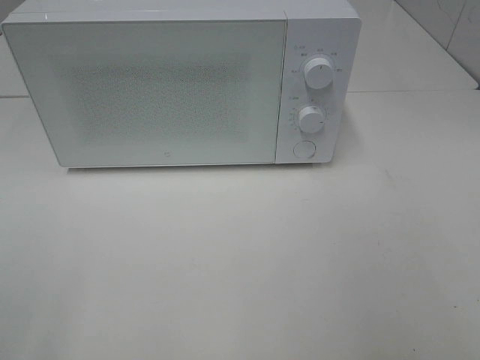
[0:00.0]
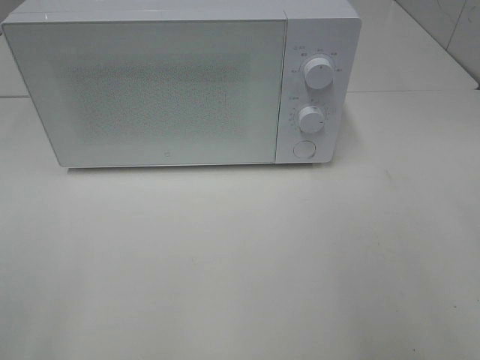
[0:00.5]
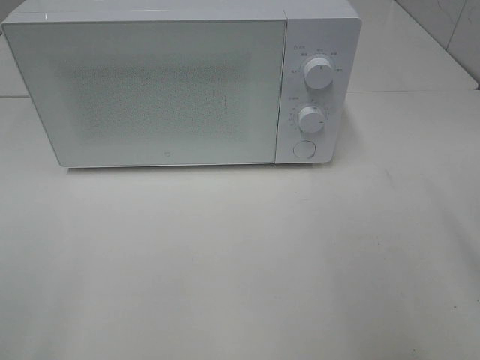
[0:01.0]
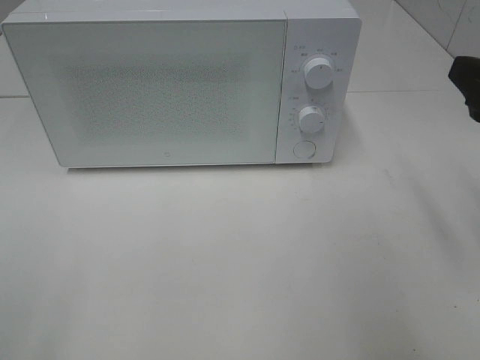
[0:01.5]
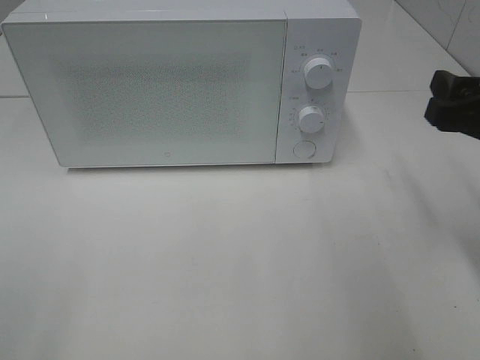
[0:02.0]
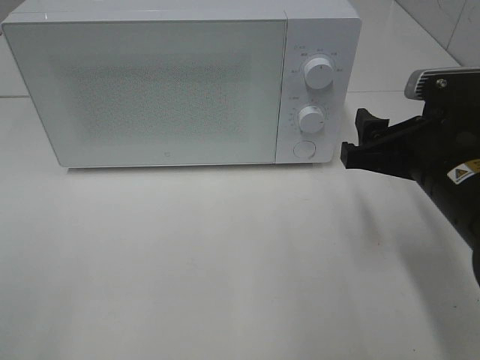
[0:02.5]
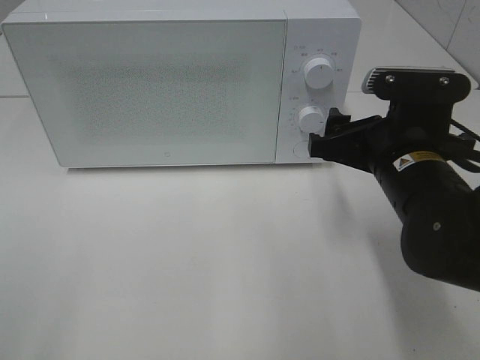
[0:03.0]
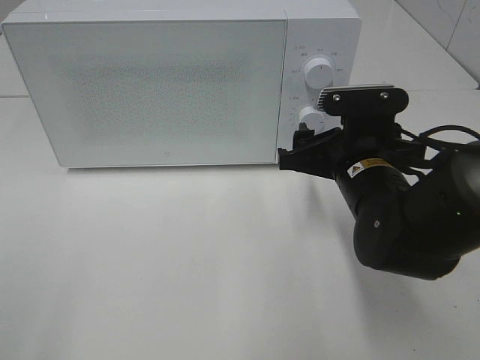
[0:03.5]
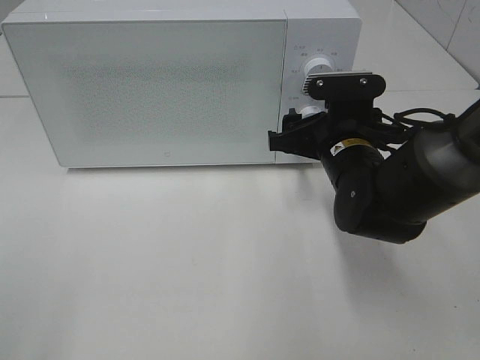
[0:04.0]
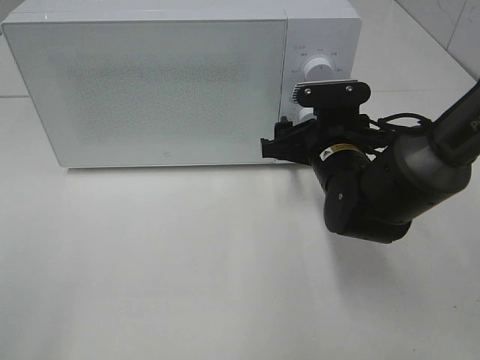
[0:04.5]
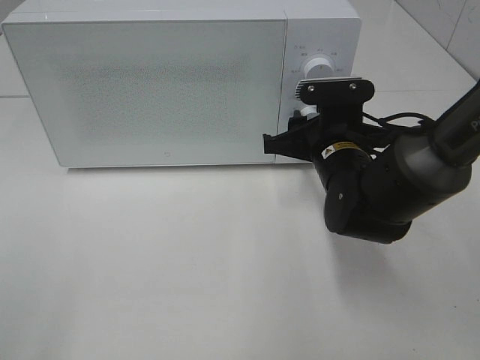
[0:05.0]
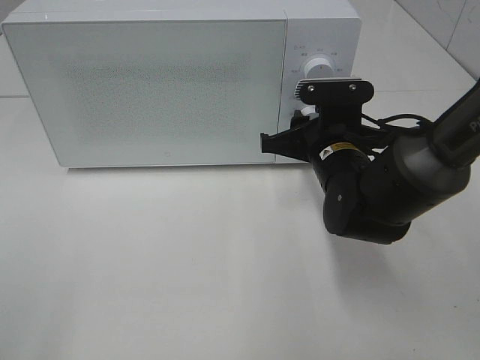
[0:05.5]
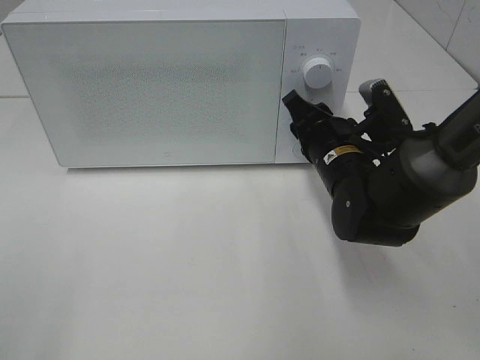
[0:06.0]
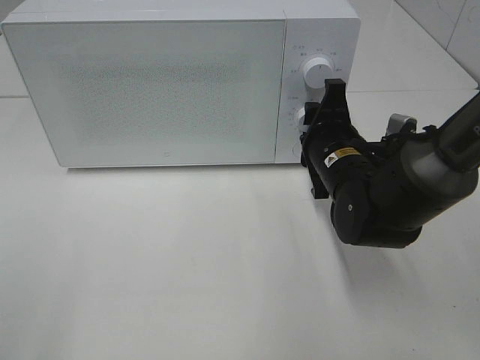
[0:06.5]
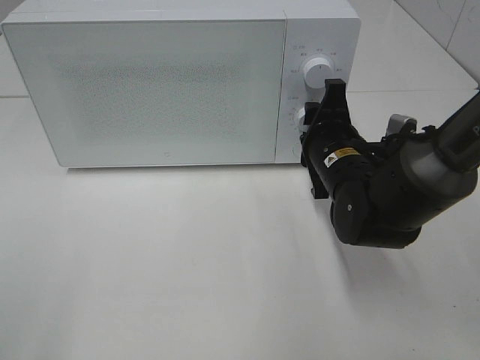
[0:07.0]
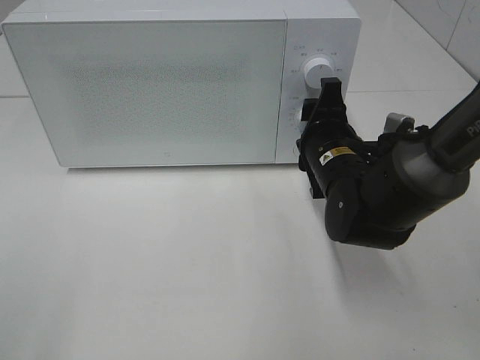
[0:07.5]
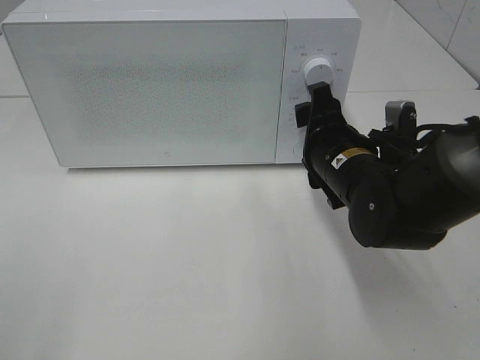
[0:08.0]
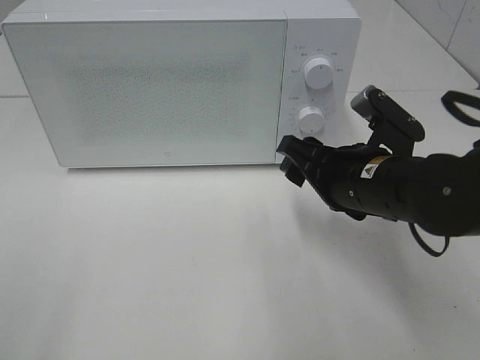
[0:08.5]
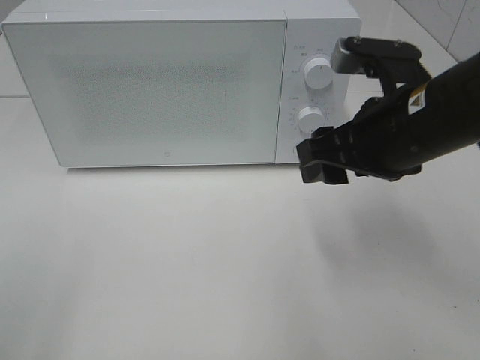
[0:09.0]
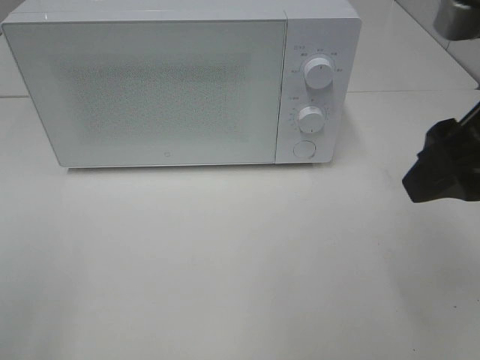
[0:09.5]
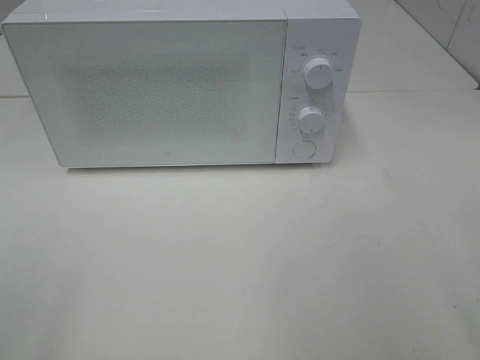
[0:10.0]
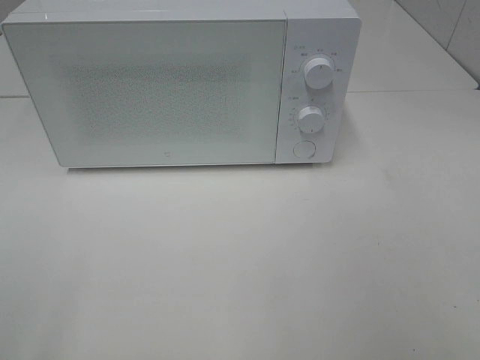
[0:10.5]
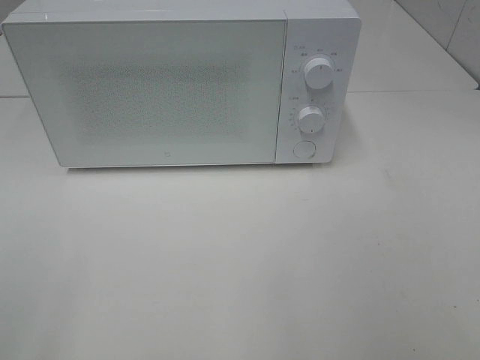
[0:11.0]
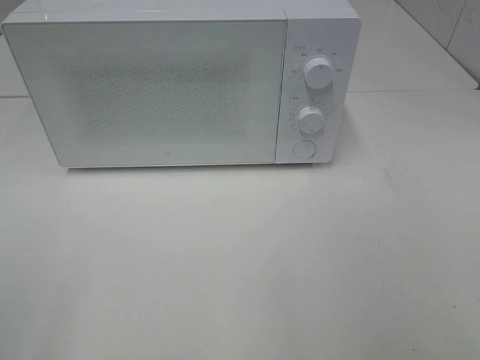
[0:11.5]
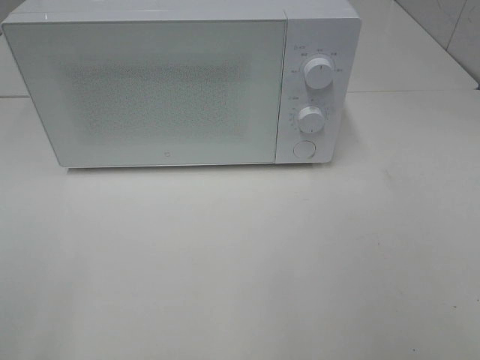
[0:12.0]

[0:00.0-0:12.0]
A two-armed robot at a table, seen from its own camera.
Task of the whole recording: Heat the burger.
Step, 0:00.0 to 0:07.5: Right hand: twist timer button.
0:00.0 to 0:02.0: The right gripper travels forward and downward by some 20 cm.
0:02.0 to 0:04.0: The right gripper travels to the left, forward and downward by about 20 cm.
0:04.0 to 0:06.0: The right gripper closes.
0:08.0 to 0:10.0: The right gripper travels backward, upward and to the right by approximately 30 cm.

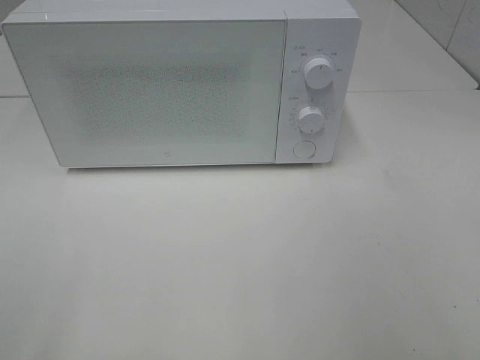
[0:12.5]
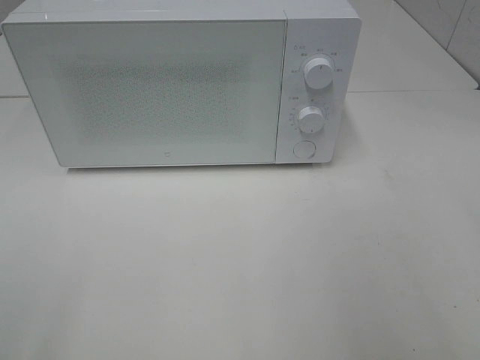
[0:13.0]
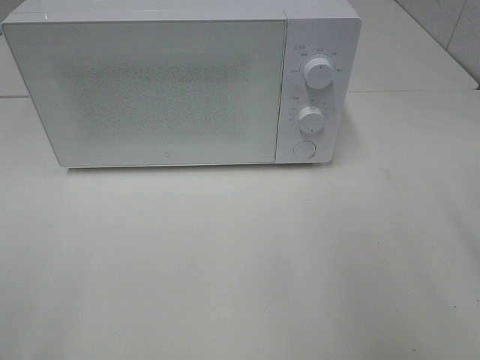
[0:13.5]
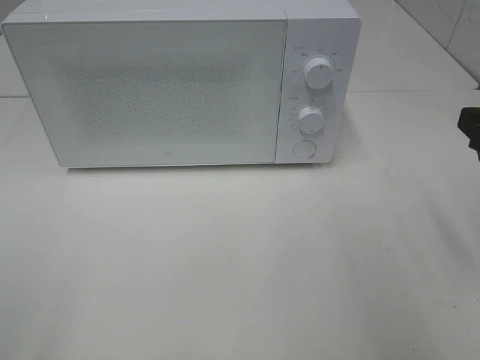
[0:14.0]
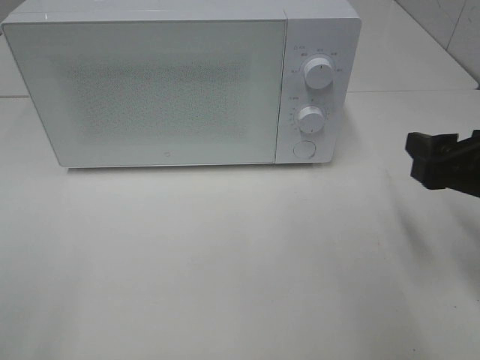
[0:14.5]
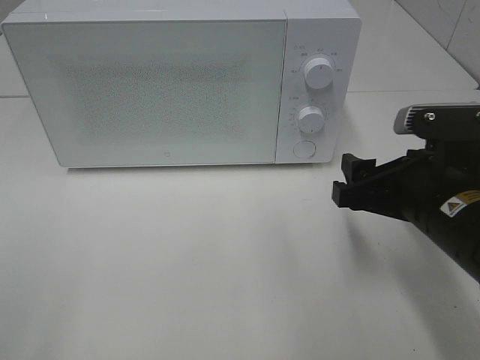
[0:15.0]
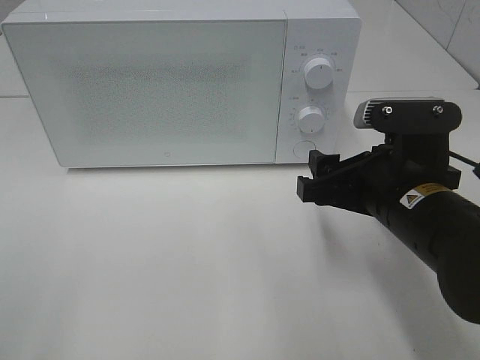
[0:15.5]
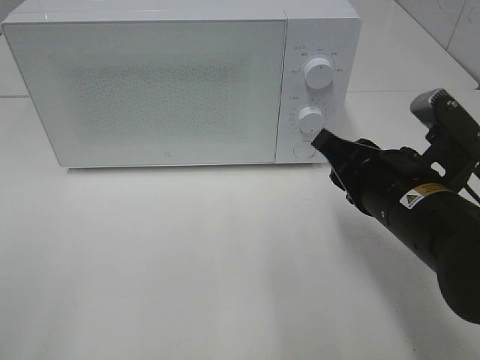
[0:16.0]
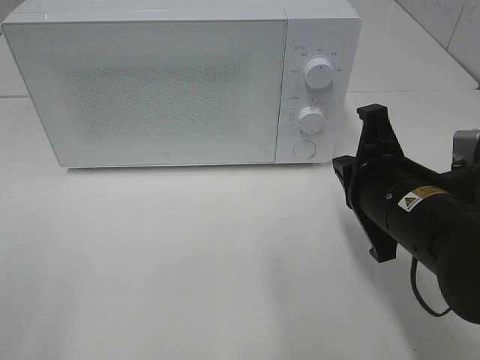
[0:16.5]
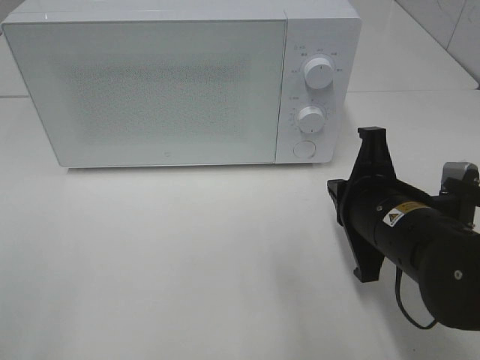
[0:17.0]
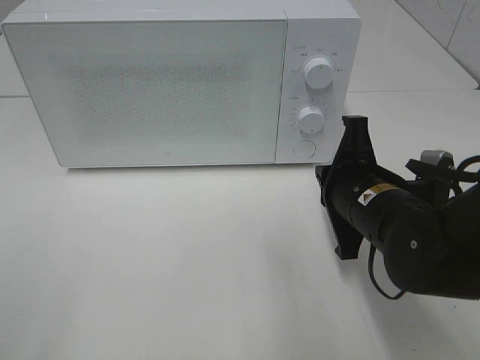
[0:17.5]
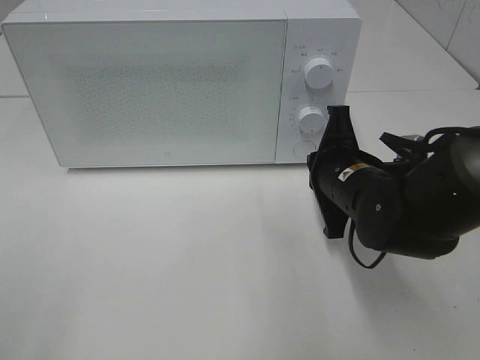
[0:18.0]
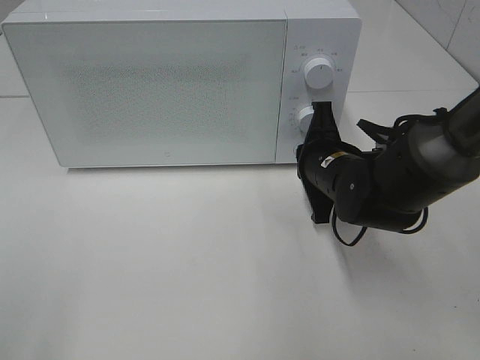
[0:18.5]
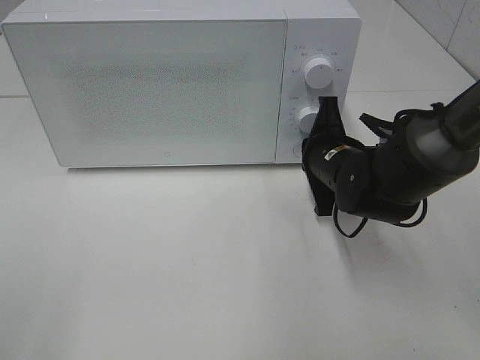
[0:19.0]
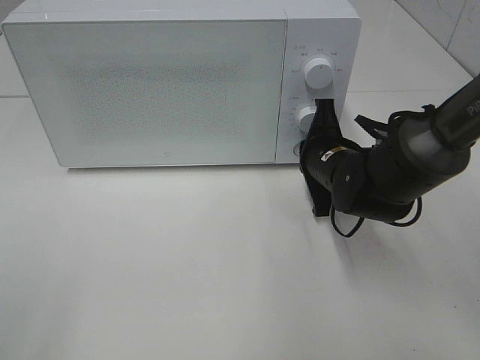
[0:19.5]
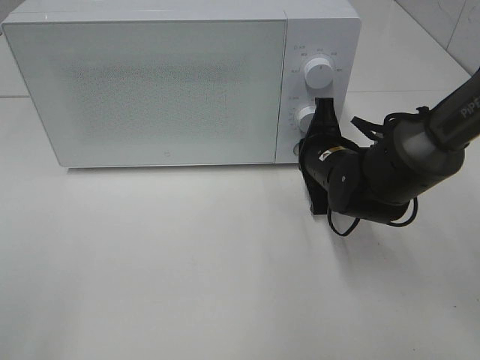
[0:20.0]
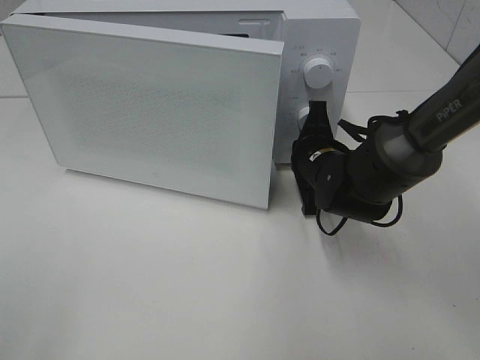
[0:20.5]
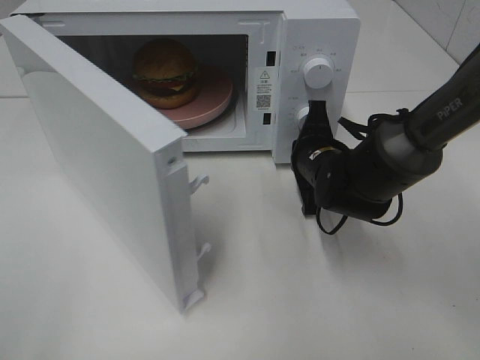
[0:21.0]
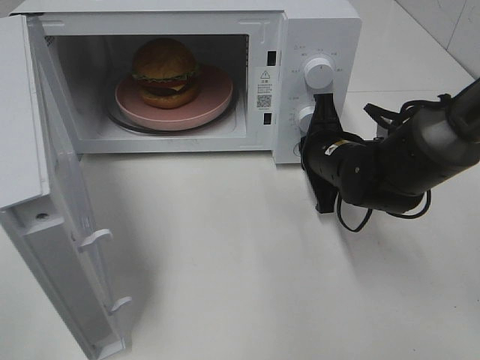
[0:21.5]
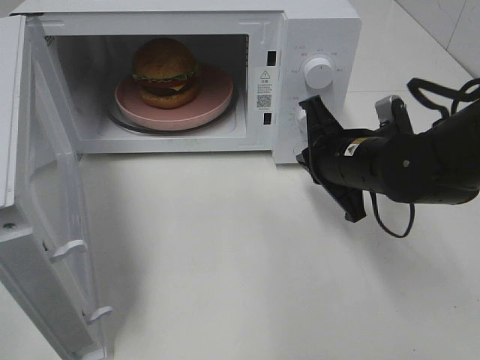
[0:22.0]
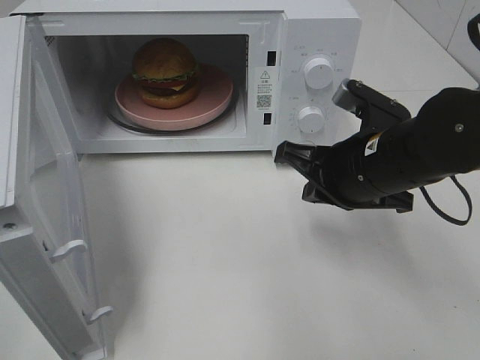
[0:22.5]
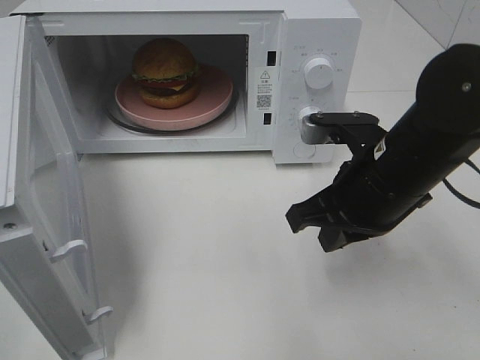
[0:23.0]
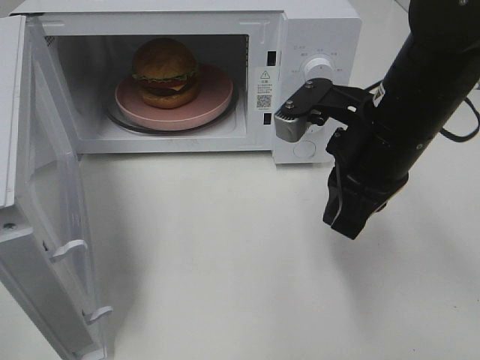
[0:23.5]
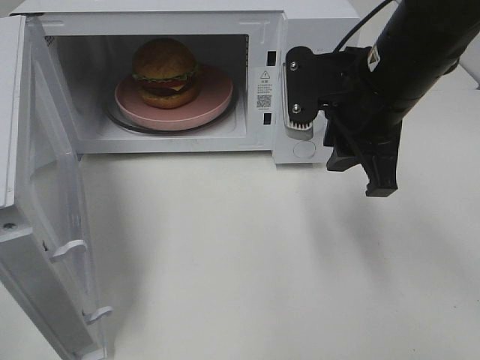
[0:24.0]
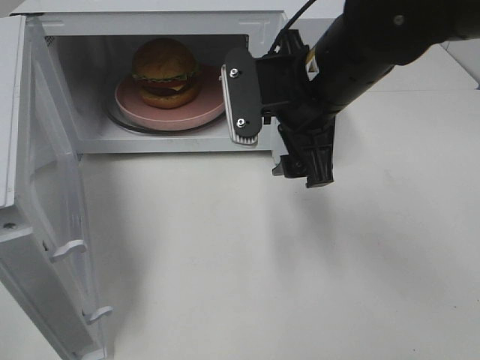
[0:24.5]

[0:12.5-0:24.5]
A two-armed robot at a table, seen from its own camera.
Task of the whole recording: Heat the burger.
Step, 0:12.5 to 0:21.5: Right hand: press the switch.
0:12.5 to 0:14.5: The right gripper moves forward and downward, some 20 cm.
0:14.5 to 0:16.5: The right gripper travels to the left by approximately 10 cm, and closes up.
0:16.5 to 0:18.5: The right gripper shifts roughly 15 cm forward and downward.
0:18.5 to 0:20.5: The grippers stay close to where they were, moving slightly.
0:20.5 to 0:22.5: The right gripper moves backward and upward, roughly 10 cm.
0:22.5 to 0:24.5: The right gripper goes some 10 cm upward and to the left, and opens up.

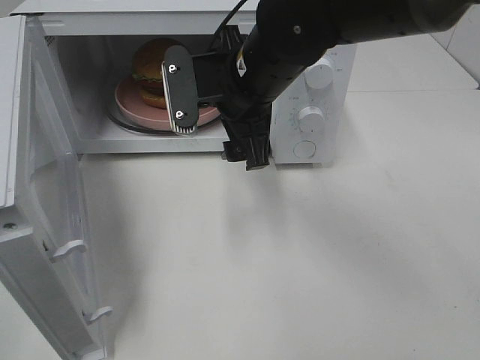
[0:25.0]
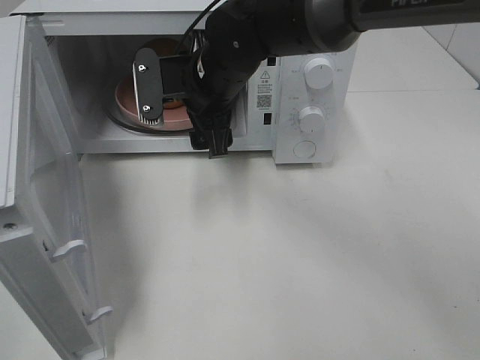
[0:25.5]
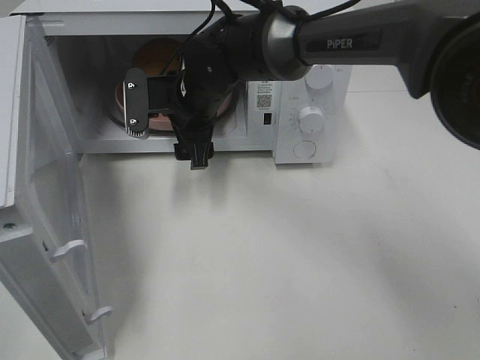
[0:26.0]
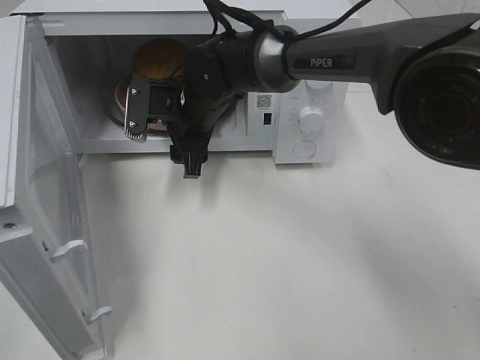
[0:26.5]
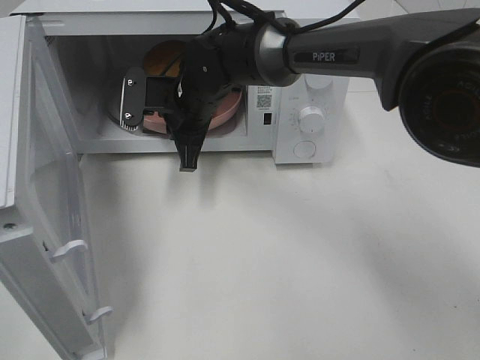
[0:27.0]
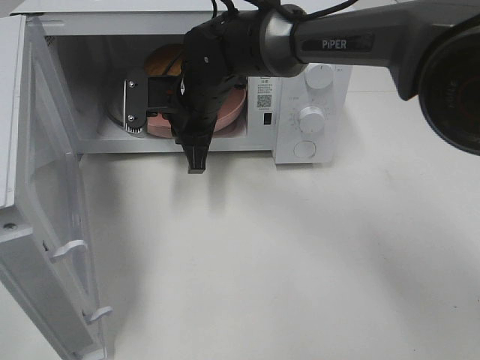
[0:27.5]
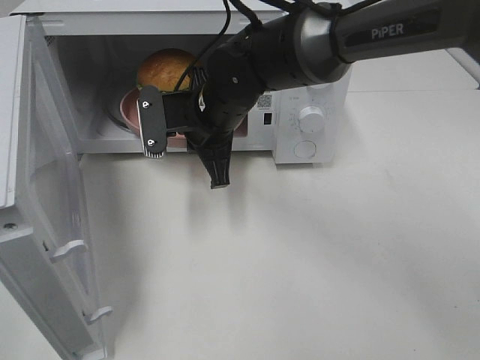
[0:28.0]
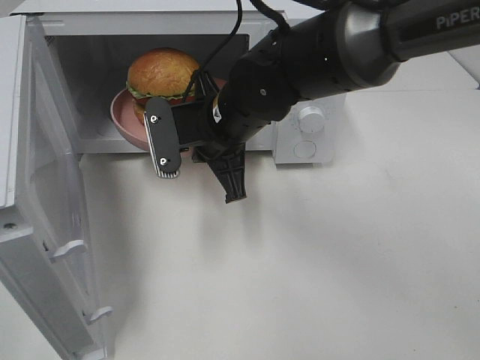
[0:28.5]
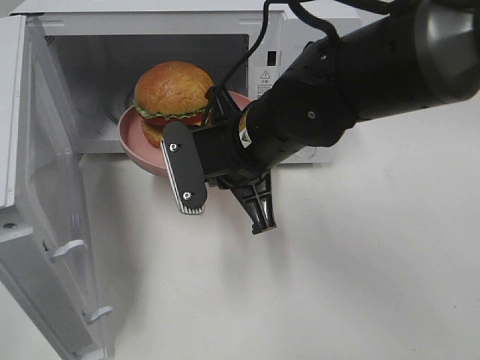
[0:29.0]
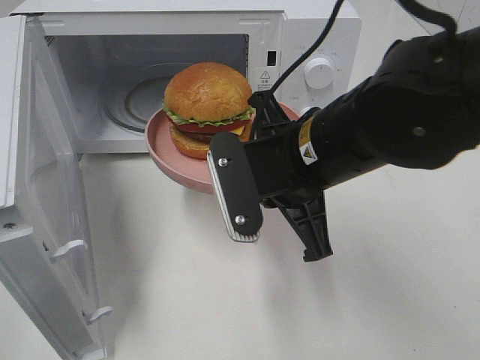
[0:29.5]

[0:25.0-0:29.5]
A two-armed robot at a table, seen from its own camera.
Task of the whole recording: Heat the burger.
0:25.0 to 0:27.0: The right gripper travels forward, downward and to the left by roughly 15 cm, and closes.
0:27.0 to 0:29.5: The right gripper travels backward and to the right by about 20 cm.
